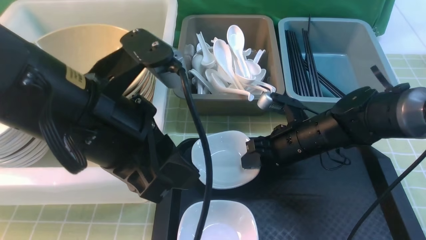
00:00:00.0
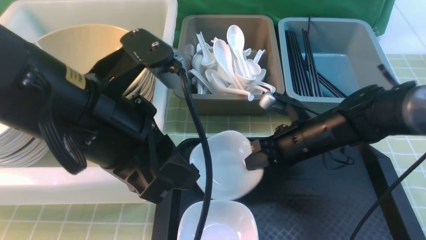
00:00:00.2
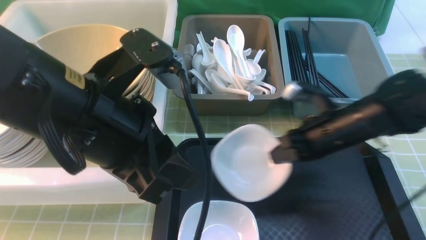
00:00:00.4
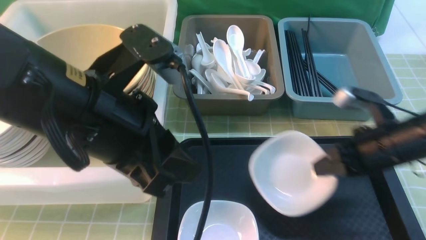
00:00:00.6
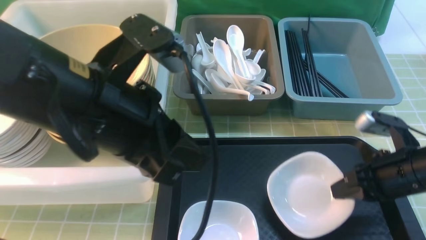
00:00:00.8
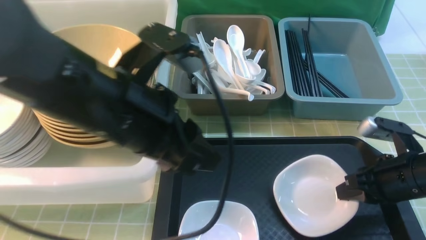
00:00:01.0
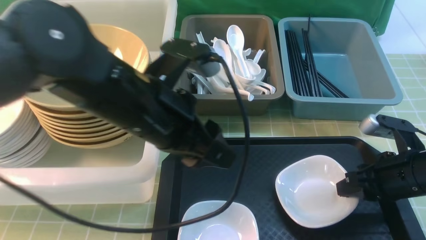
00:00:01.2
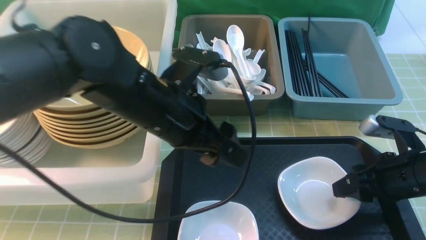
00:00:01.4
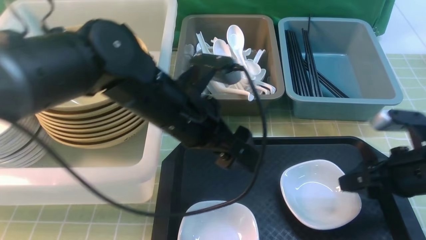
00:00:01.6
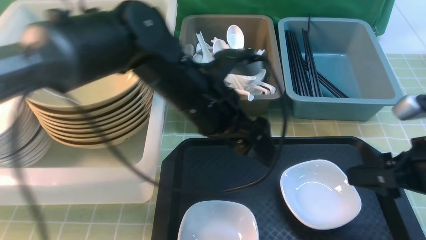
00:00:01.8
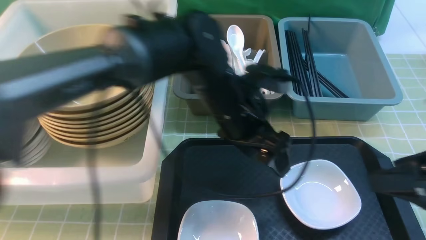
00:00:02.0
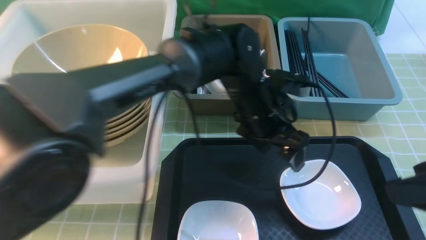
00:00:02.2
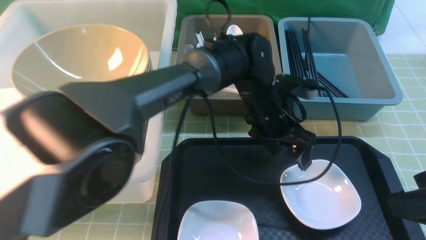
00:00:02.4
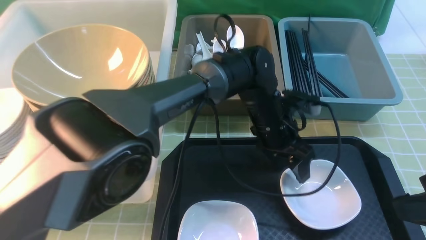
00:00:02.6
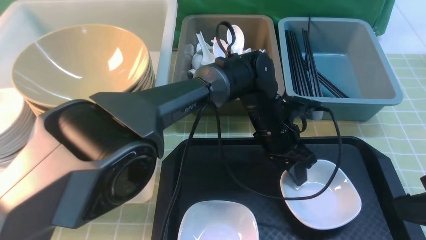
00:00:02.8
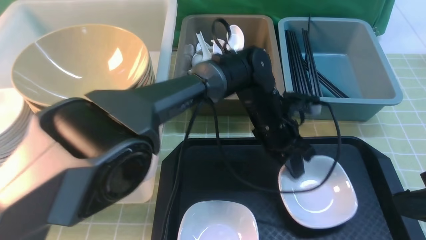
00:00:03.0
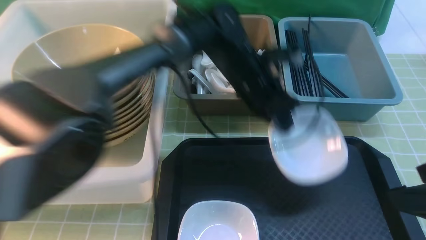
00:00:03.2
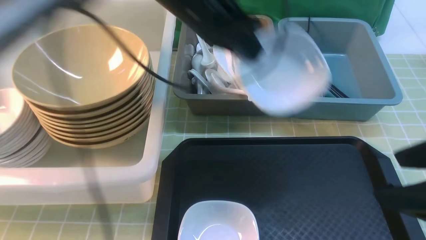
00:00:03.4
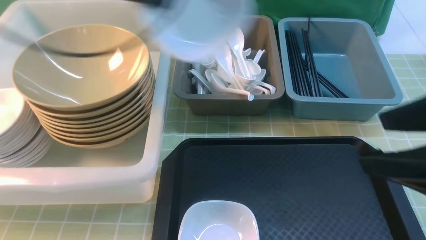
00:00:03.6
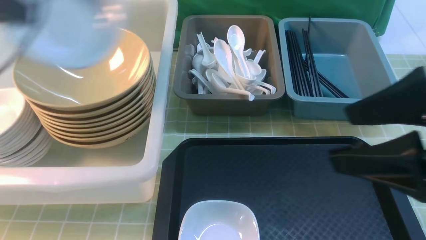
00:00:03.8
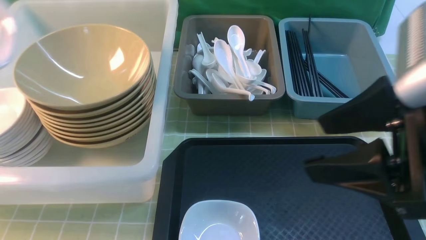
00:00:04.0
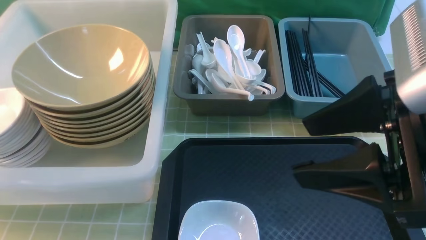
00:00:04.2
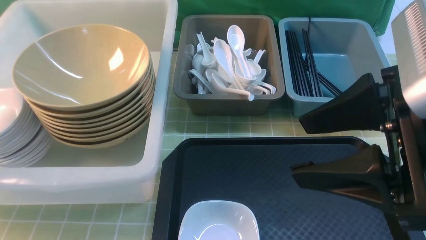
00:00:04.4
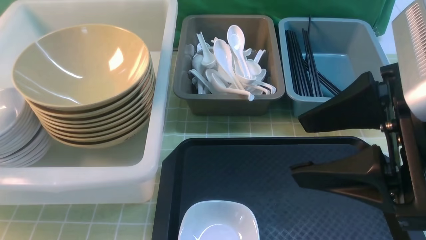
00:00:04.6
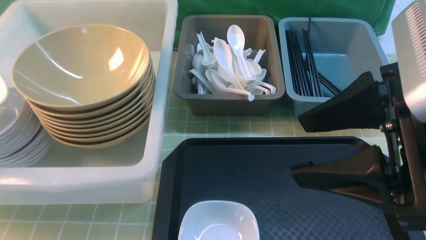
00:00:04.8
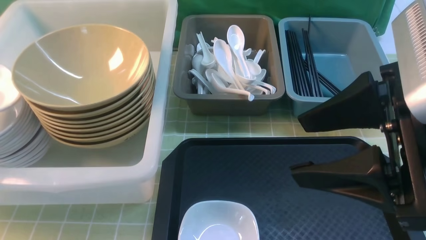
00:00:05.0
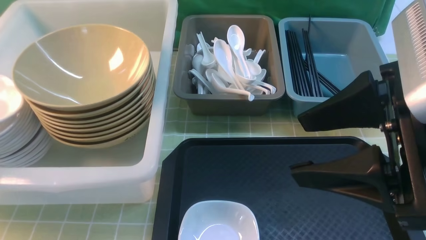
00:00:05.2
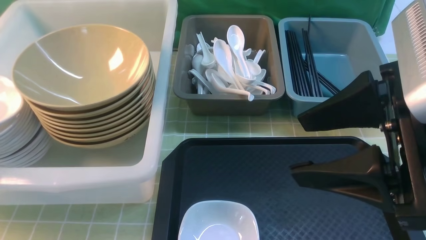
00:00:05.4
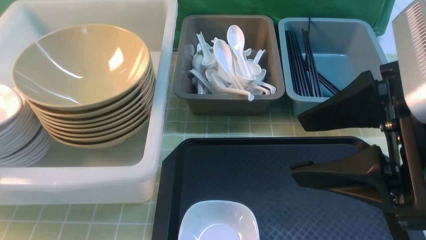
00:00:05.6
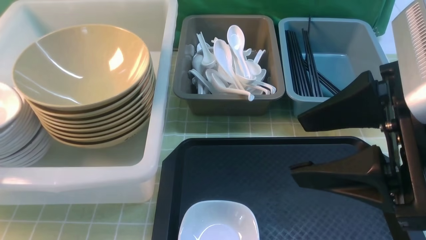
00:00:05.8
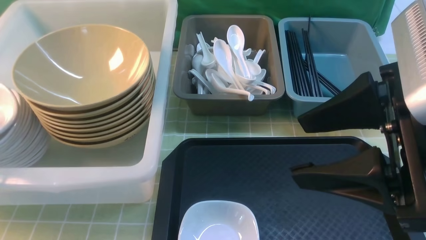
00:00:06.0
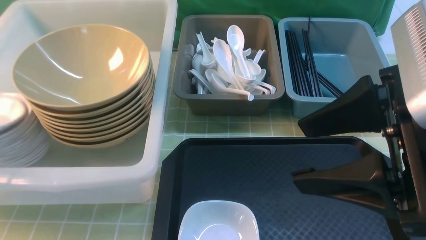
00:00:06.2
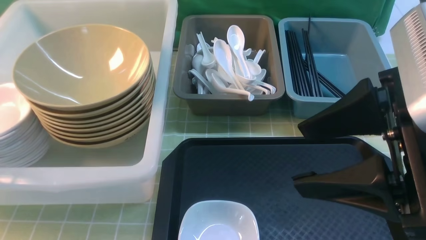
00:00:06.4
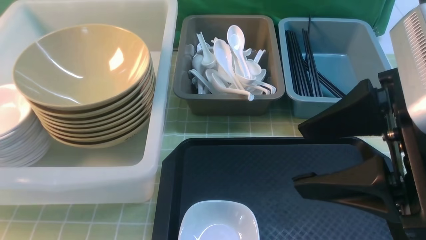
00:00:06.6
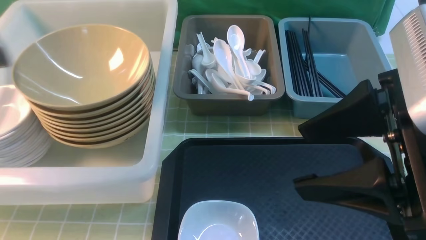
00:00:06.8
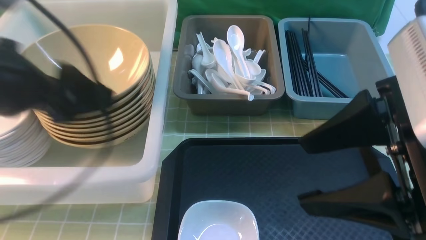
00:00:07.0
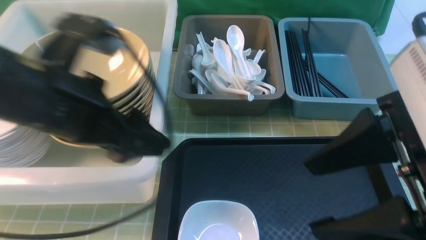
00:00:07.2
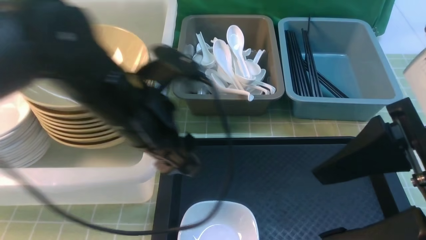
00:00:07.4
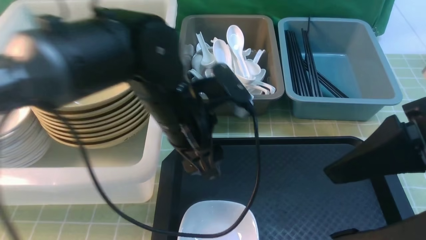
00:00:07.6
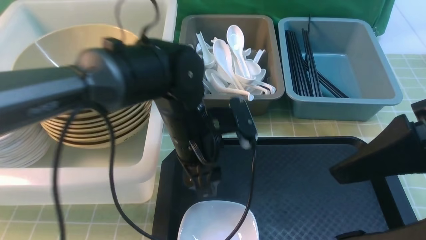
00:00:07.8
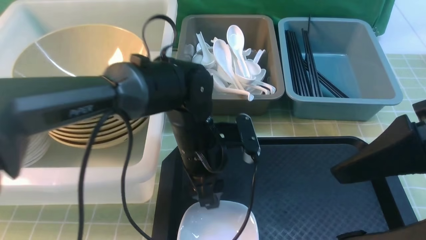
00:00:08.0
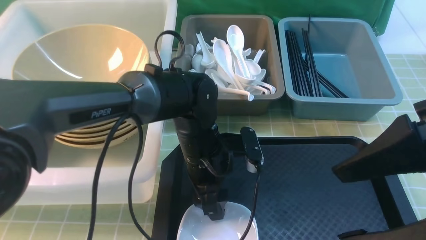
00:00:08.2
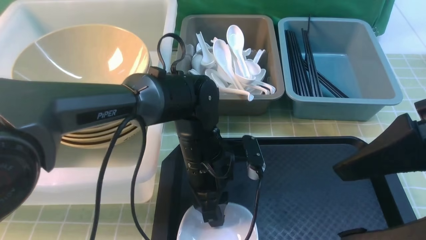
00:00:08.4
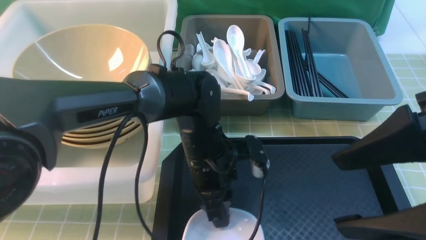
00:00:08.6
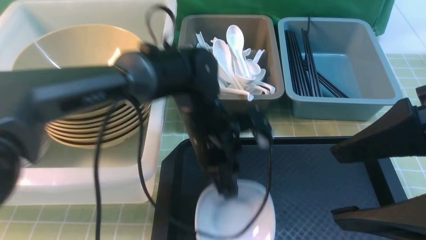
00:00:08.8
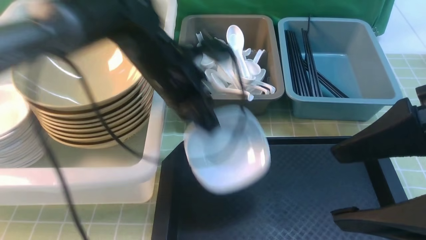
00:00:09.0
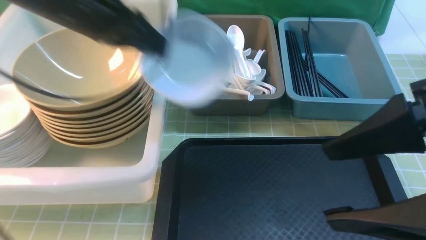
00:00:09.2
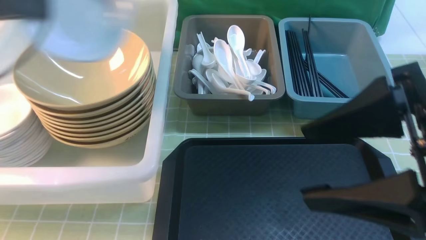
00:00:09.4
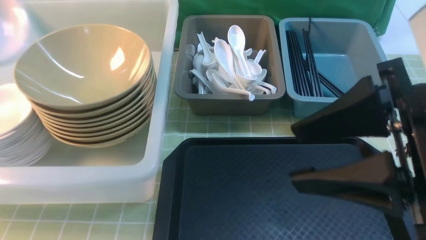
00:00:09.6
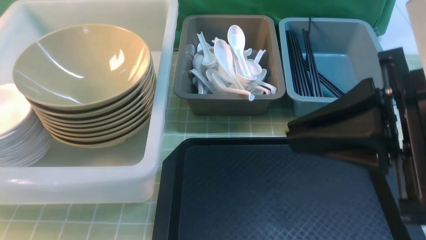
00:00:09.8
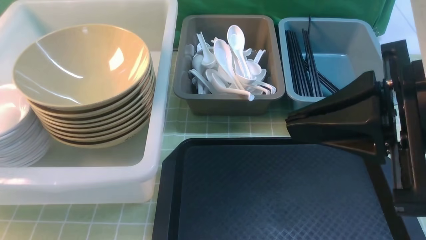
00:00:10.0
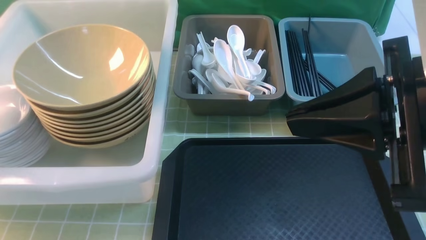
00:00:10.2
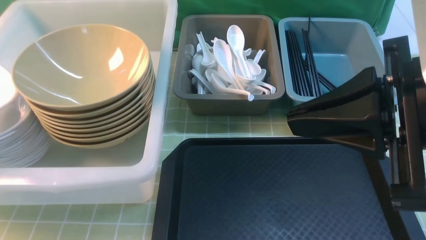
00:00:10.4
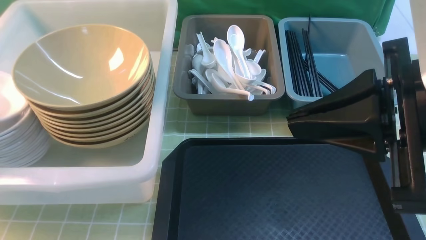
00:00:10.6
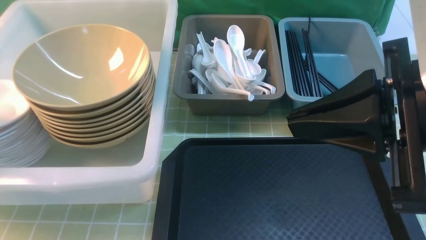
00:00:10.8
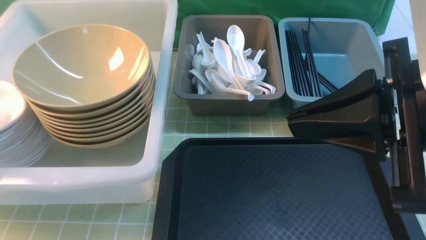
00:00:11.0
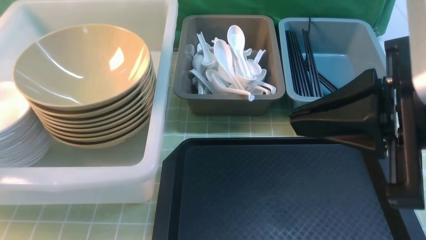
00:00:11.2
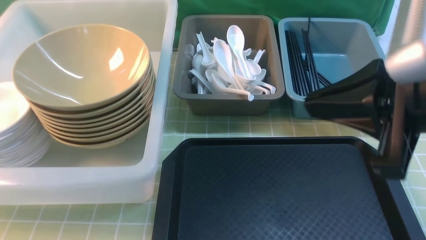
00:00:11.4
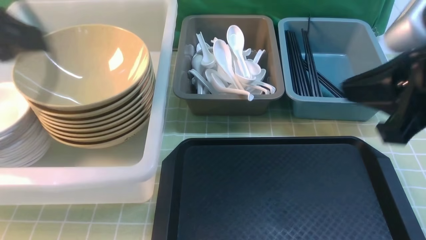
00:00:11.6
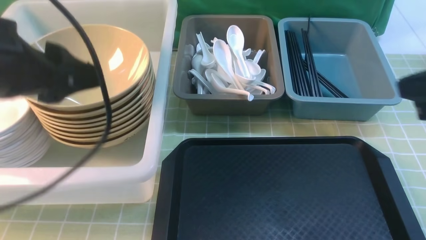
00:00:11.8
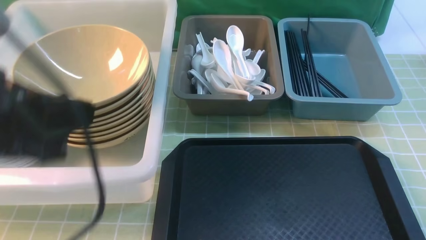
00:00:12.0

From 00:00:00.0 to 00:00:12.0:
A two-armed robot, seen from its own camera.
Task of the whole recording: on green table put chopsticks spoon bowls plates into blue grey white boxes.
Step, from 00:00:00.6 to 00:00:01.8: use the right arm to put the plate on the tray.
Step, from 00:00:02.0 to 00:00:03.2: use the left arm to grab the plate.
Step, from 00:00:03.6 to 00:00:06.8: use the left arm to put the plate into the large storage box on the left.
Step, from 00:00:07.0 to 00:00:08.8: use the left arm to grab the plate.
Step, from 00:00:09.2 to 00:00:11.2: use the left arm to put the plate into the large storage box on the left.
From 00:00:00.0 to 00:00:01.6: The left gripper moves forward, downward and to the right, some 15 cm, and opens up. Meanwhile the right gripper goes approximately 20 cm to the right, backward and upward, and opens up.
From 00:00:01.6 to 00:00:03.0: The left gripper moves to the right, forward and downward, about 15 cm, and closes. The right gripper heads upward and backward, covering about 15 cm.
From 00:00:03.0 to 00:00:04.4: The left gripper is displaced to the left by approximately 50 cm. Meanwhile the right gripper is displaced to the left and upward by some 10 cm.
From 00:00:06.0 to 00:00:07.6: The left gripper moves to the right, approximately 35 cm.
From 00:00:07.6 to 00:00:09.0: The left gripper goes roughly 5 cm forward, reaches approximately 10 cm downward, then returns, and closes.
From 00:00:09.0 to 00:00:10.4: The left gripper travels to the left by approximately 35 cm. The right gripper closes its fingers.
From 00:00:10.4 to 00:00:12.0: The left gripper moves to the right, backward and upward, some 25 cm, and opens and closes again, while the right gripper heads to the right and downward, covering some 10 cm.

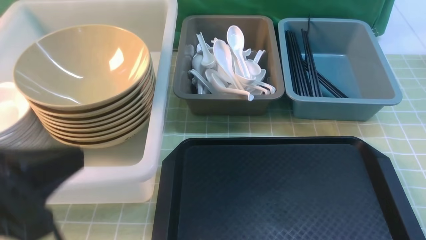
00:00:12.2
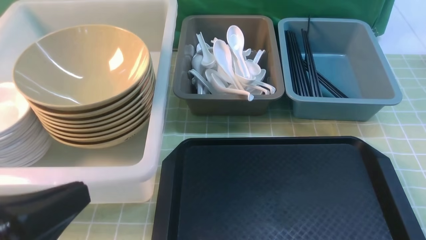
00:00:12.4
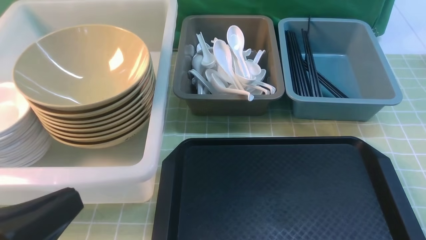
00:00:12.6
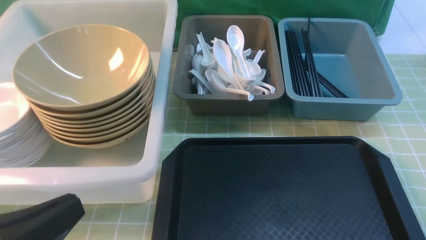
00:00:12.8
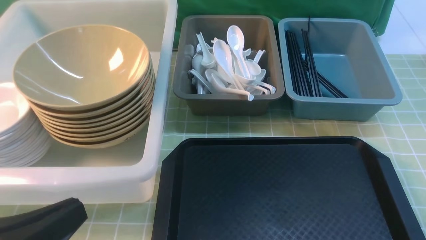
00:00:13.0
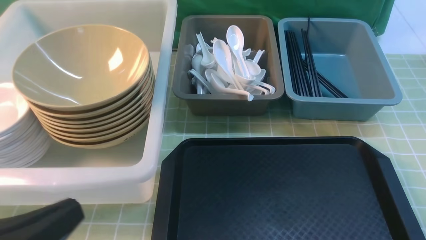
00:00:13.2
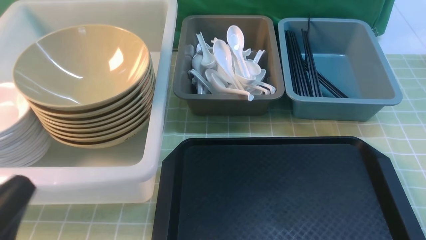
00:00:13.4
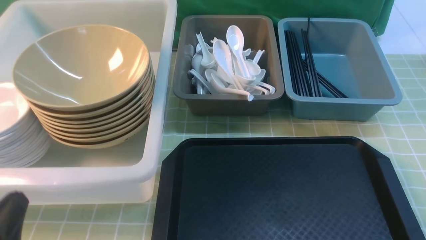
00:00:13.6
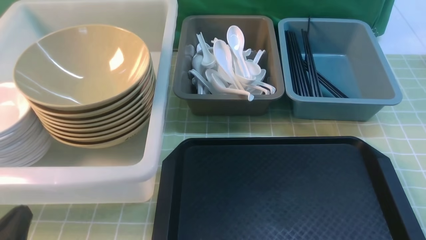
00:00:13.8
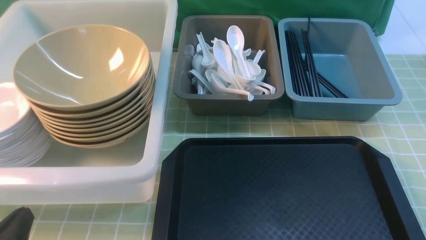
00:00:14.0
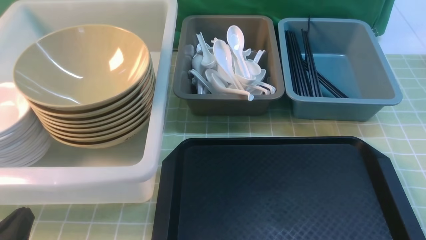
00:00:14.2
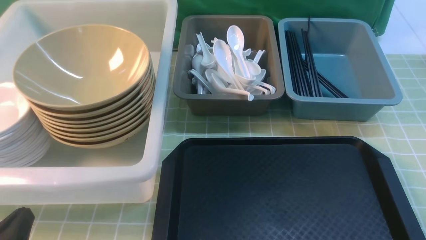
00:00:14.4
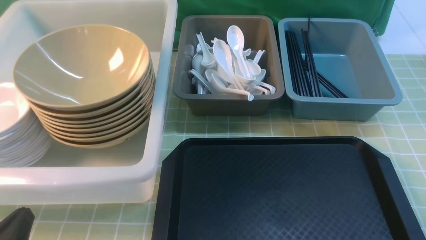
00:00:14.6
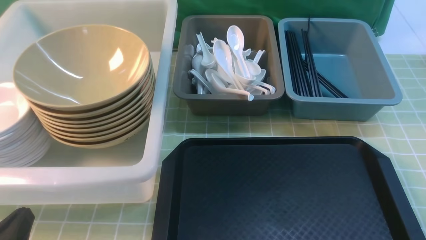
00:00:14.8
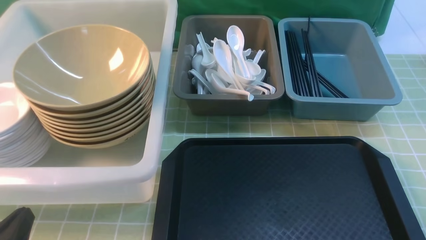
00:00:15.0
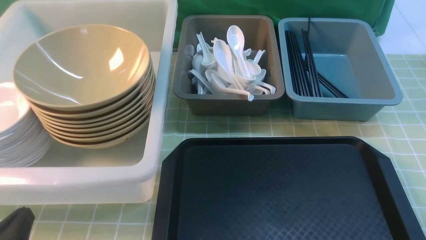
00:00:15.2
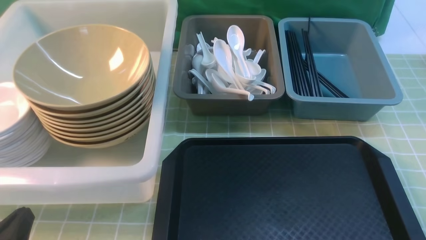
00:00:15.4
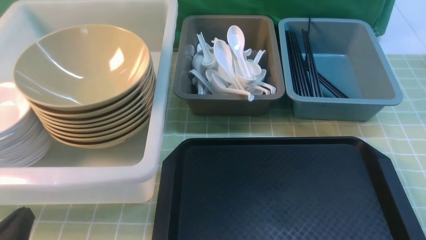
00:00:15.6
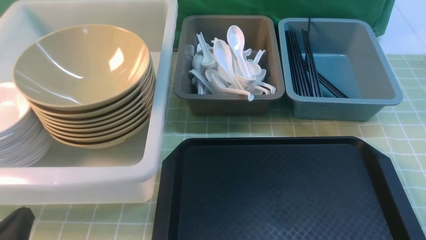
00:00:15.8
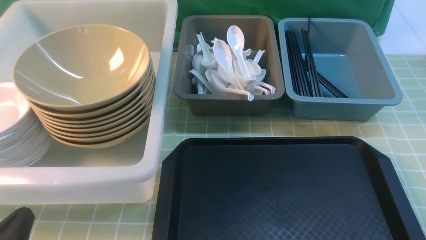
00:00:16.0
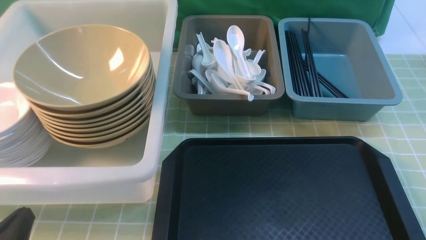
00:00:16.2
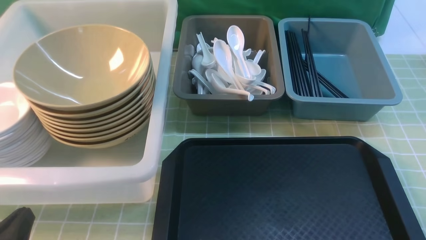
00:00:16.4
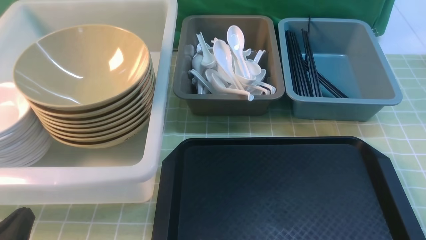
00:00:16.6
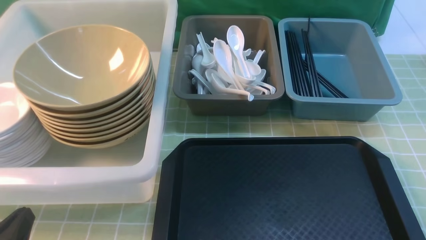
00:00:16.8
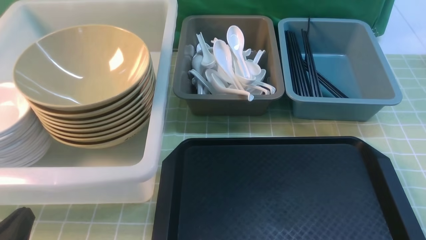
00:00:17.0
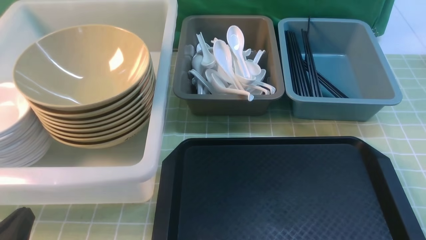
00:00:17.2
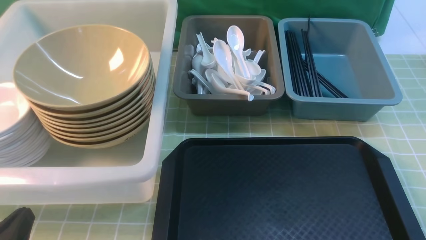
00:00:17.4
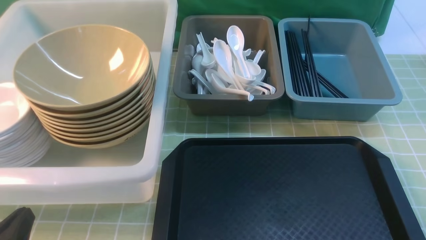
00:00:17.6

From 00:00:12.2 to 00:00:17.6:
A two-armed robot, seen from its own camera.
Task of the whole recording: on green table put chopsticks spoon bowls plates into blue grey white boxes.
From 00:00:12.2 to 00:00:13.6: The left gripper goes some 15 cm downward.
From 00:00:16.2 to 00:00:17.6: Both grippers stay put.
